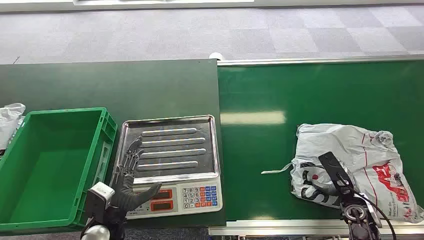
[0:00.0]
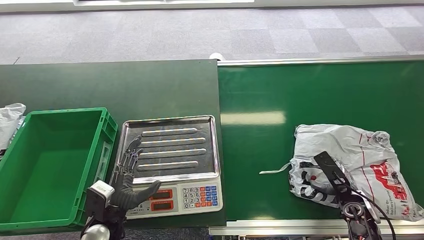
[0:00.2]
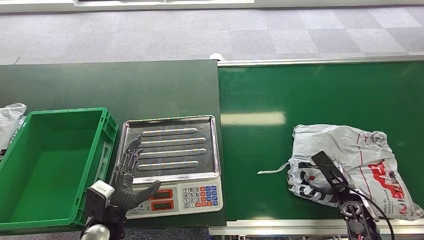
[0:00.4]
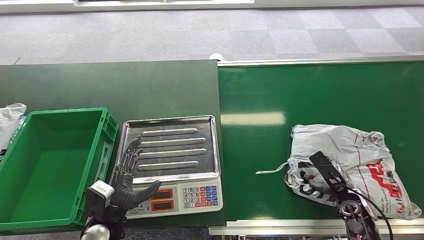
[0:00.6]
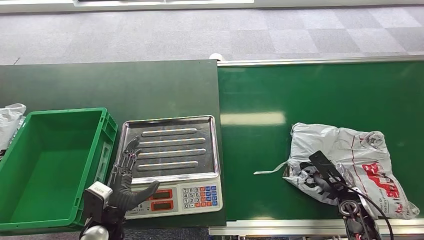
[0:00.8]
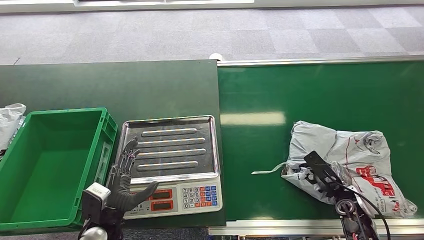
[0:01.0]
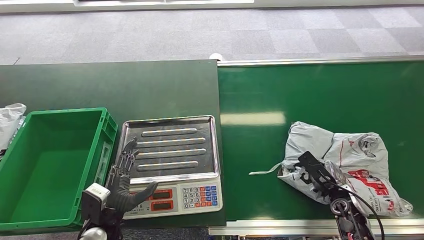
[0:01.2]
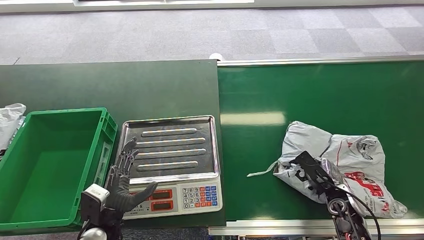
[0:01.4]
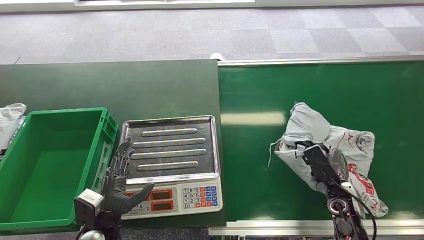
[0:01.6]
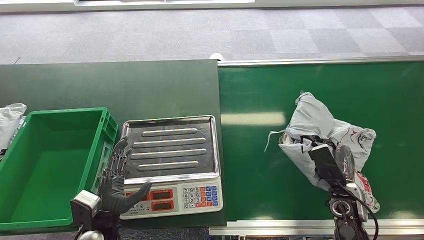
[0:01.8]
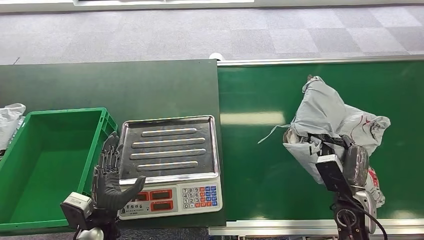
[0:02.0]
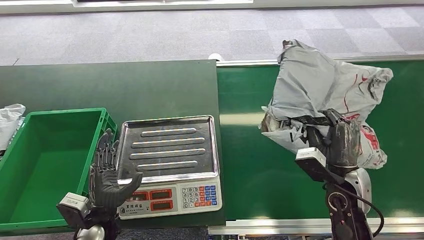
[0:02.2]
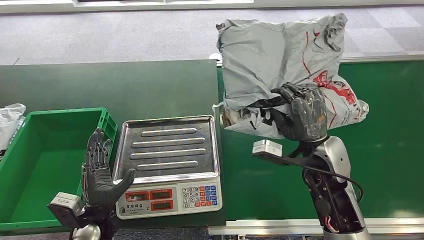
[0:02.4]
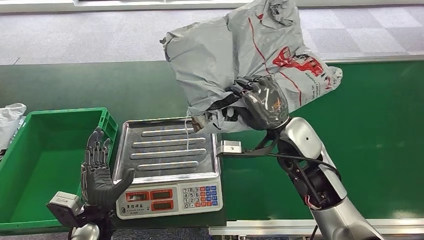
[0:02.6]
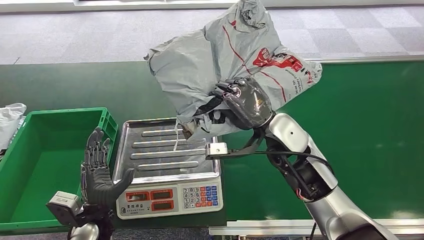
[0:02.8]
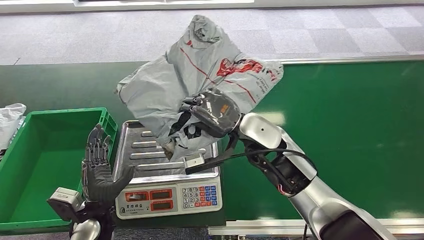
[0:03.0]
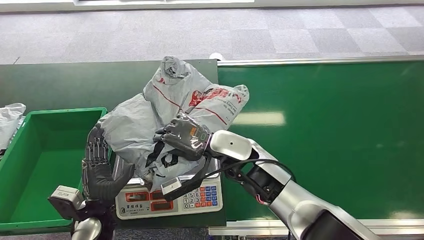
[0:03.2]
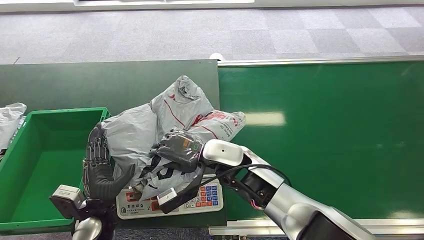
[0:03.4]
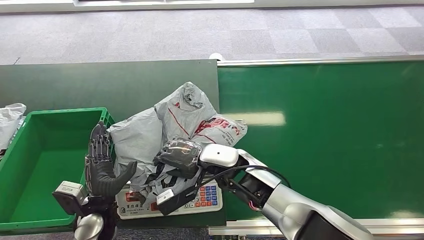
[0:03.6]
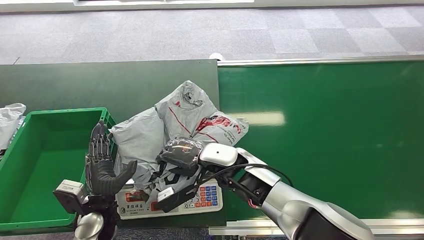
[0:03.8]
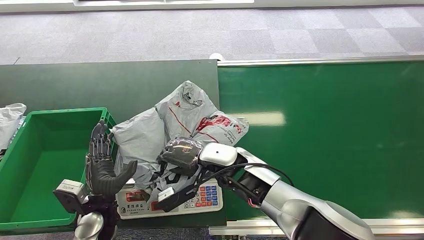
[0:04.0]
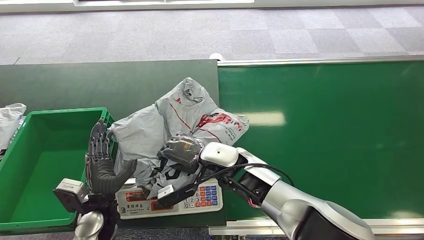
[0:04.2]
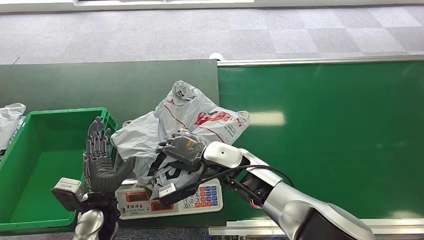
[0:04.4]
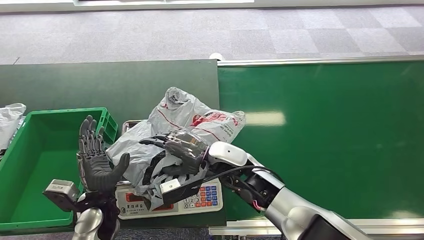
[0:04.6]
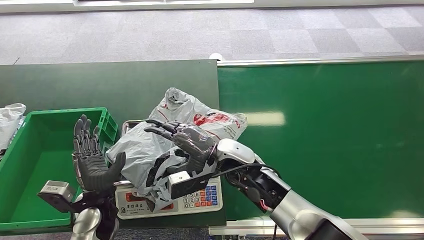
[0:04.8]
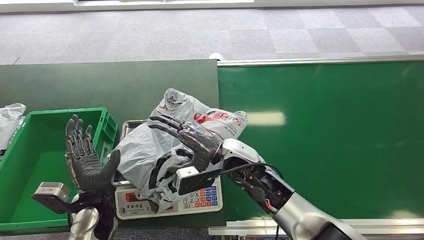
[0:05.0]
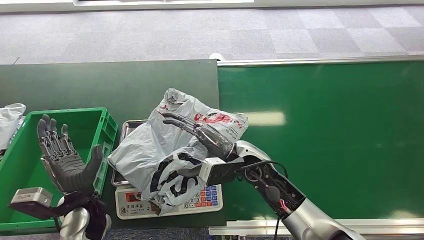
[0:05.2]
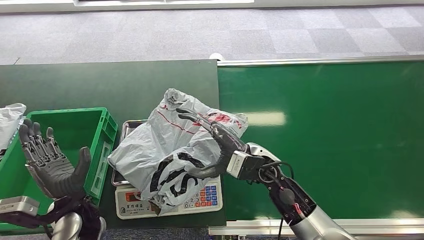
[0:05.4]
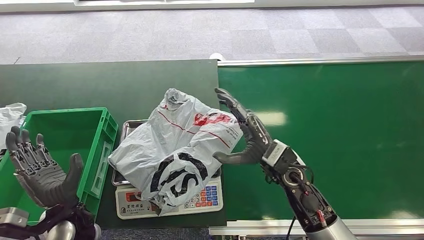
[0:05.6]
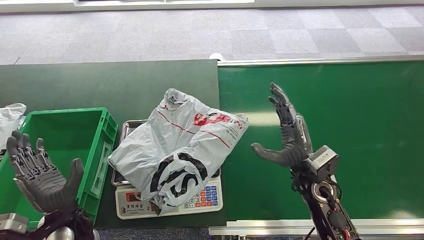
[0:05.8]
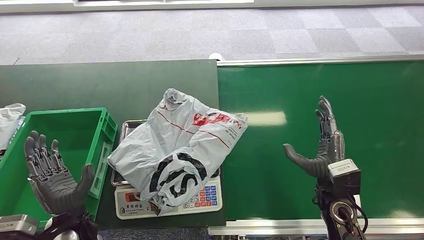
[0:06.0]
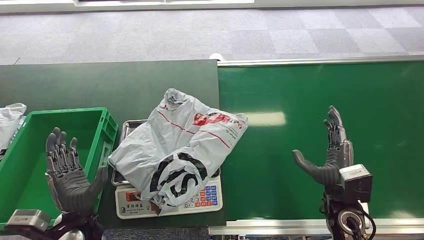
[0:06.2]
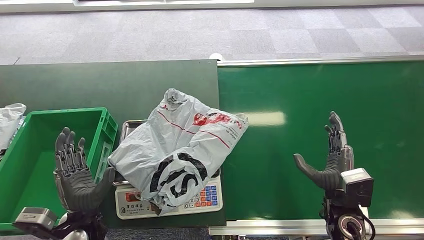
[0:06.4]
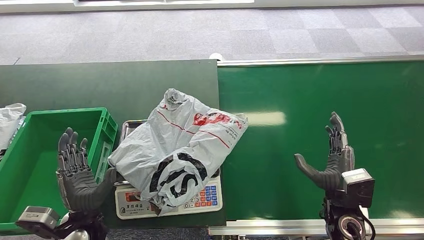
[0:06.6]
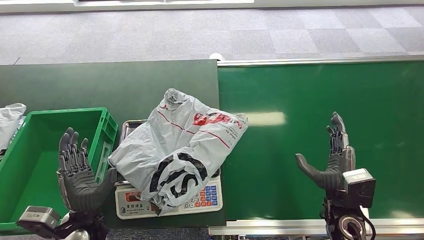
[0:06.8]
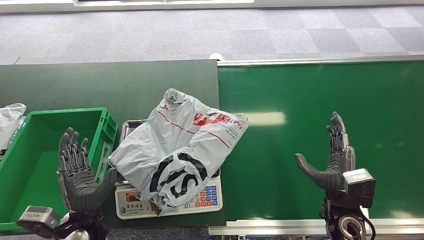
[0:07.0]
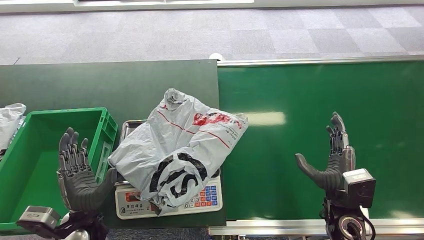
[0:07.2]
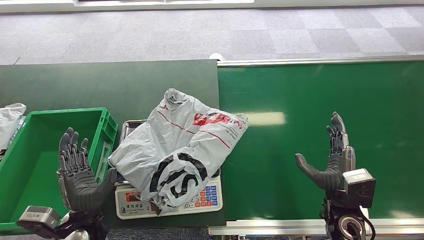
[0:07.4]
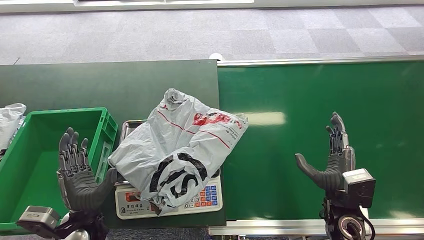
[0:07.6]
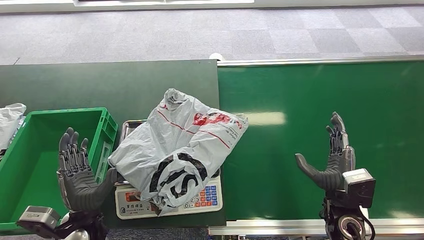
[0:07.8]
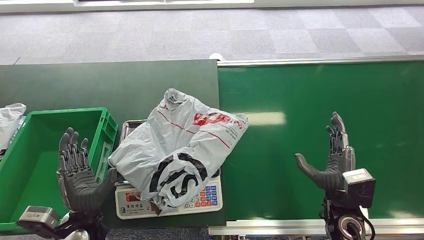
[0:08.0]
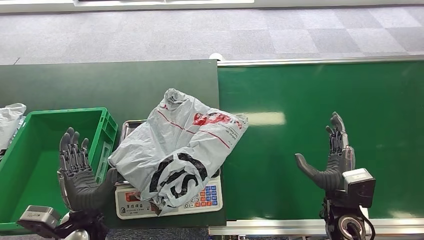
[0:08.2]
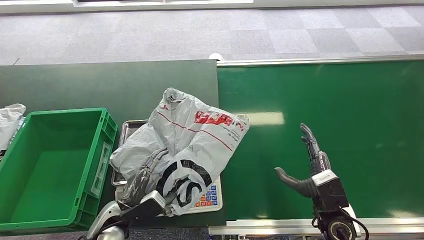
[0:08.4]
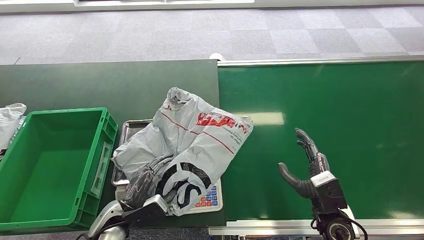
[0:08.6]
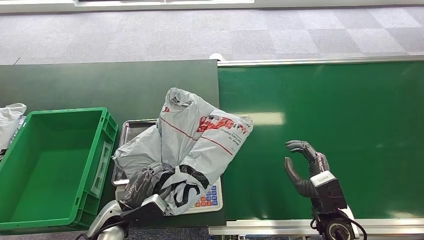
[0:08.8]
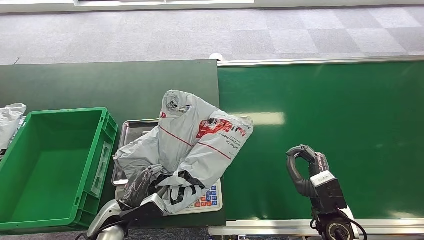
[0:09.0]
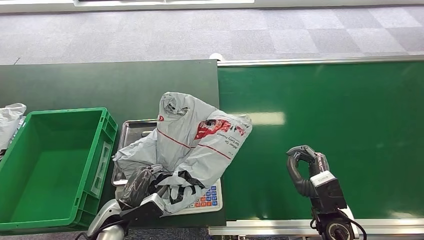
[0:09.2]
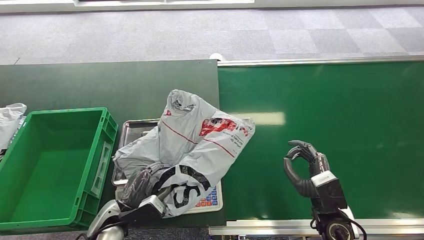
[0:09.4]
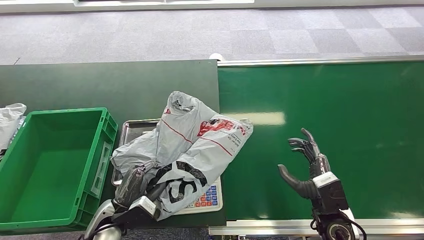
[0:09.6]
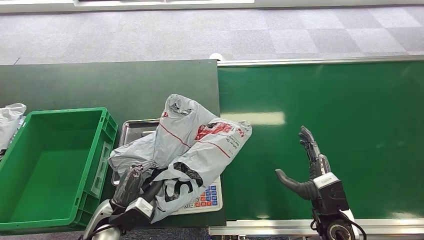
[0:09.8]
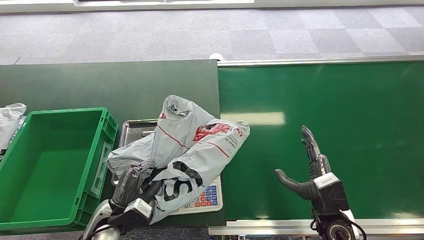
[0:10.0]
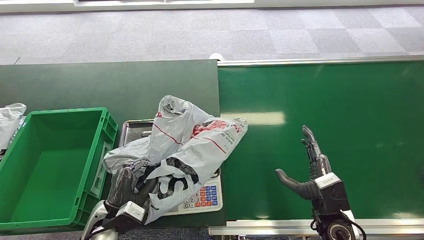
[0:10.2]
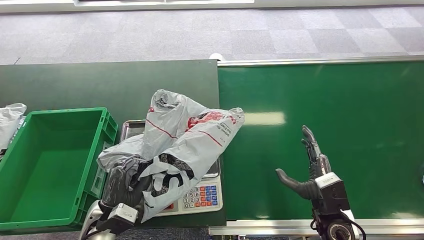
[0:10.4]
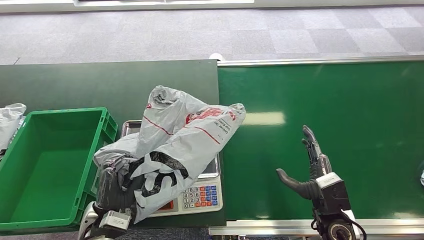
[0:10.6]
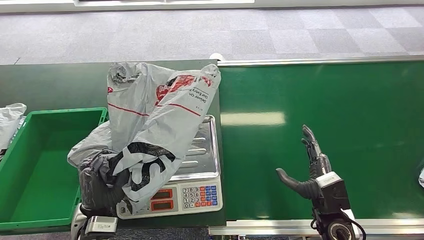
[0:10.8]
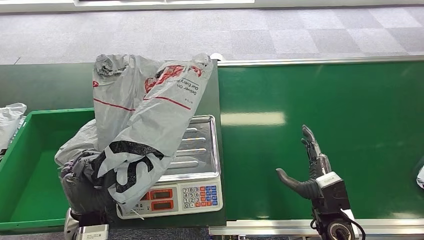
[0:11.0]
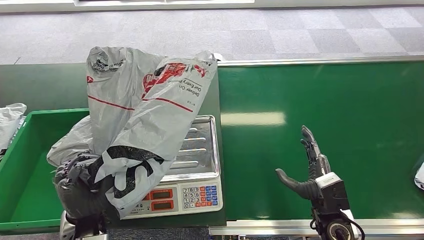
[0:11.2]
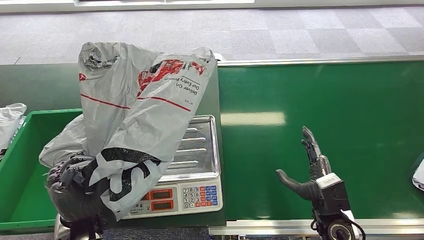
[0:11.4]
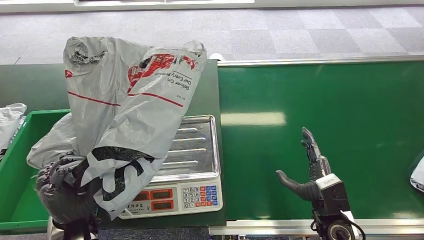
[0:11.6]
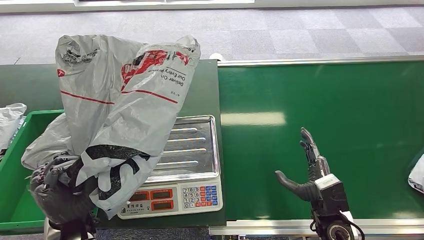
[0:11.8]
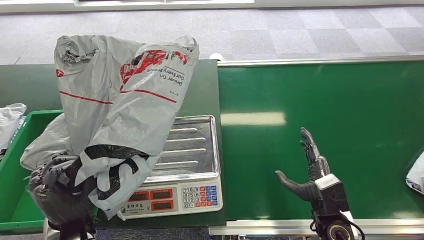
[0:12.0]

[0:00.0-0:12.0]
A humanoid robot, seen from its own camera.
Step, 0:00.0 to 0:02.4: Pick up the package from the conveyor belt.
Step, 0:02.6 to 0:05.6: Place the package onto the inbound machine.
Step, 0:05.8 to 0:11.4: Pick up the package from the inbound machine.
0:06.0 to 0:07.6: The hands make only small movements.
0:07.6 to 0:09.0: The left hand ends up roughly 5 cm from where it was.

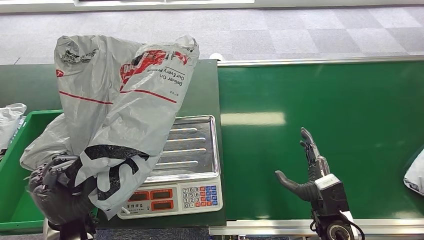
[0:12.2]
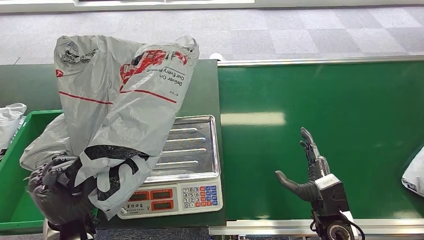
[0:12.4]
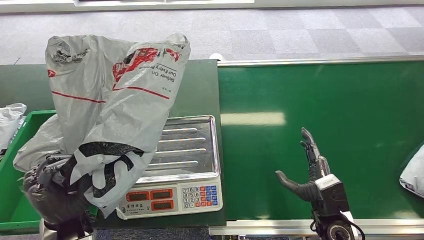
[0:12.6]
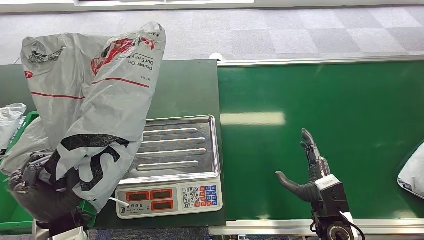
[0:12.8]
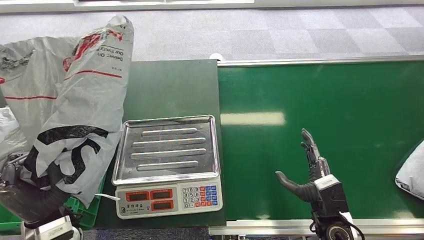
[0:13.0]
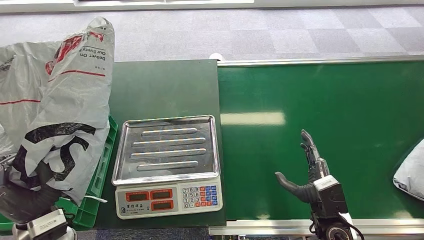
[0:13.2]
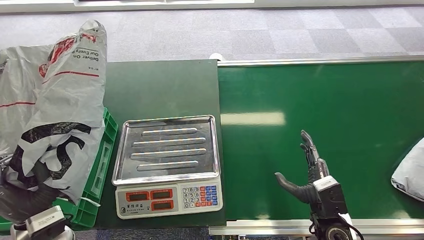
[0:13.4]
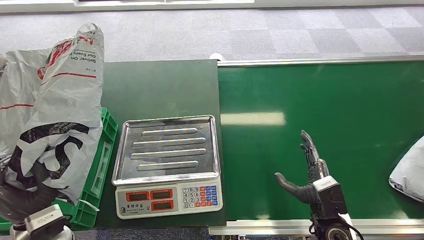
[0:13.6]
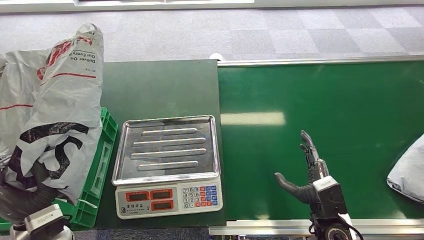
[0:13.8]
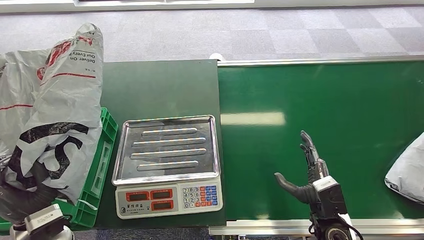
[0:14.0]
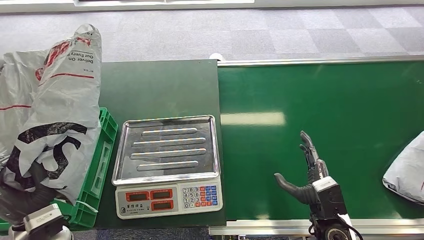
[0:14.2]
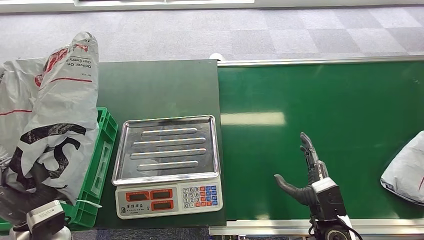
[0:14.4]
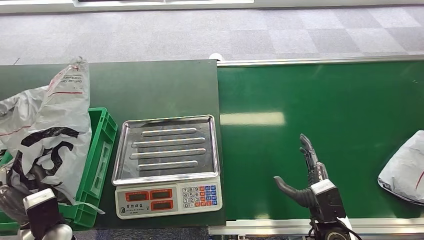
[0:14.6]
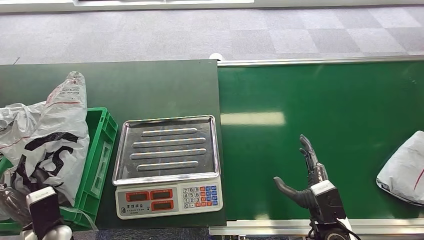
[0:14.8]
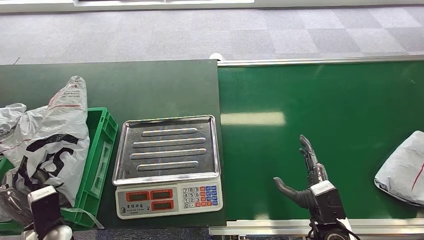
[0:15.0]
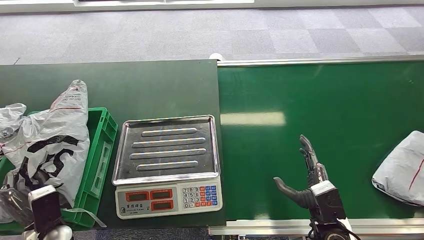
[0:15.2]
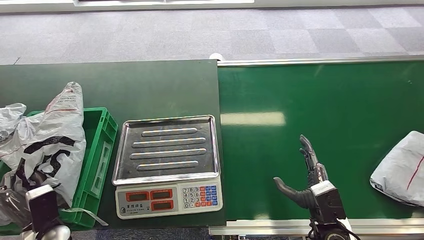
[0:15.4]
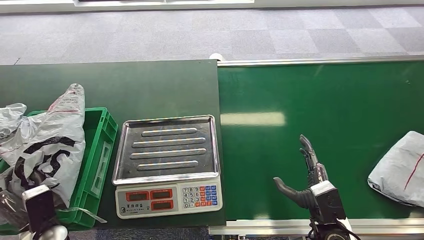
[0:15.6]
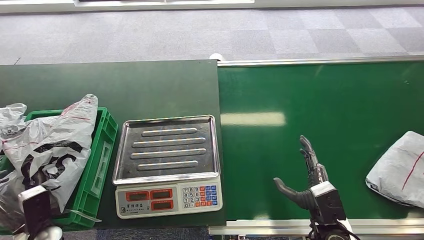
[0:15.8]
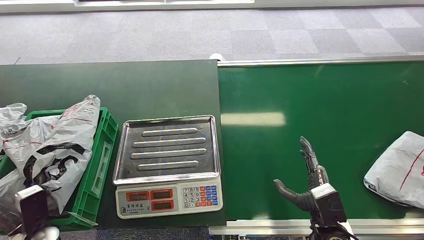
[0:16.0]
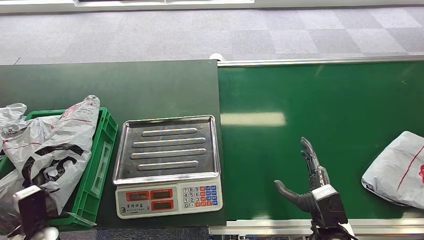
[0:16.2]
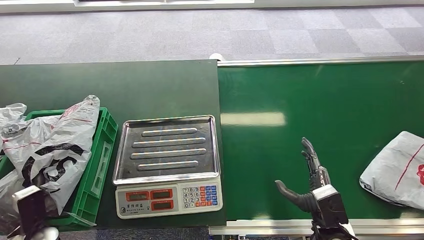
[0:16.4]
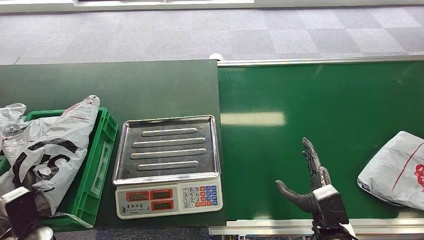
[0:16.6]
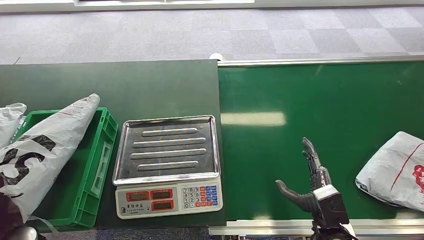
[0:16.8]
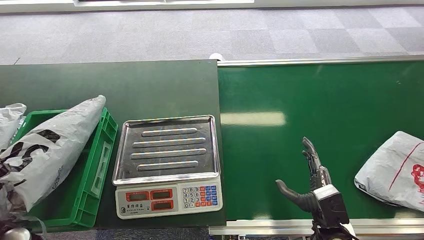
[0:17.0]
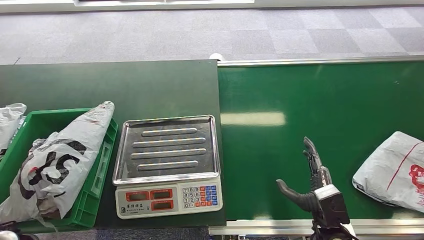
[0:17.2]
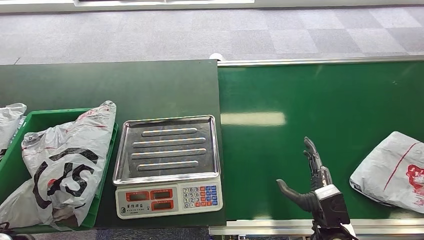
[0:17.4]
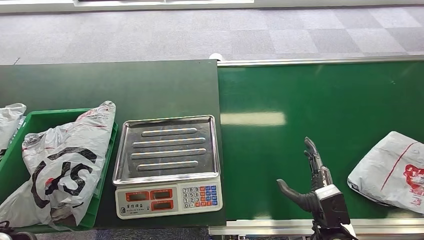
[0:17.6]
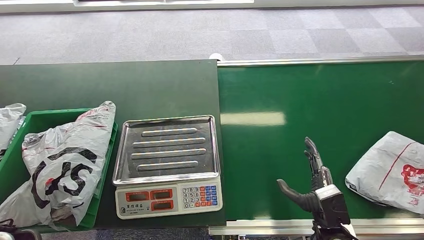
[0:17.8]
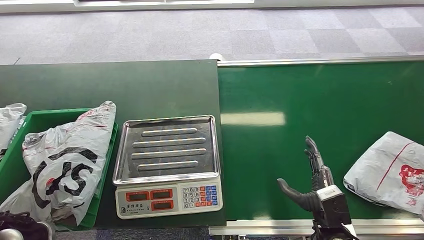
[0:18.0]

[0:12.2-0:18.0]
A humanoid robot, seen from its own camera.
Step, 0:12.2 to 0:18.0: Place the package into the parcel locker.
0:13.6 to 0:15.0: The left hand goes roughly 10 cm downward.
0:15.0 to 0:16.6: The hands move only a little.
0:16.6 to 0:18.0: The left hand moves upward, some 10 cm.
